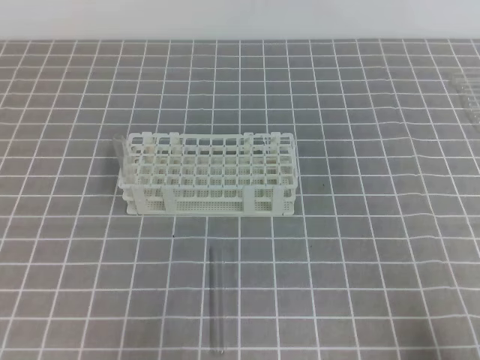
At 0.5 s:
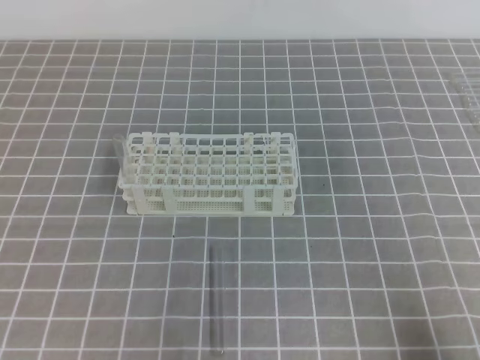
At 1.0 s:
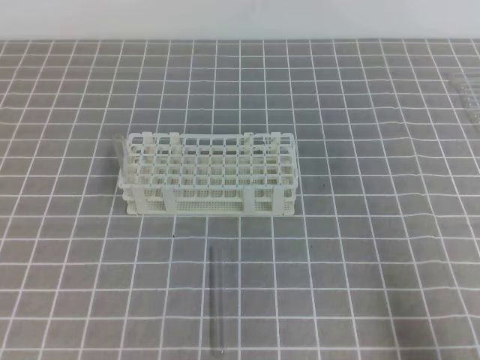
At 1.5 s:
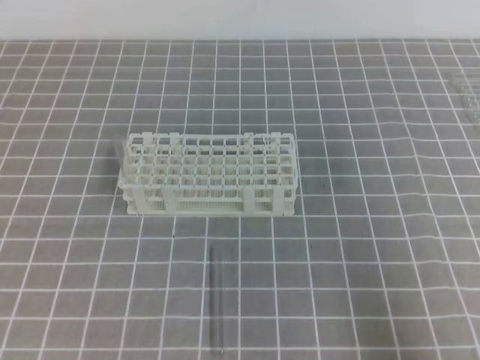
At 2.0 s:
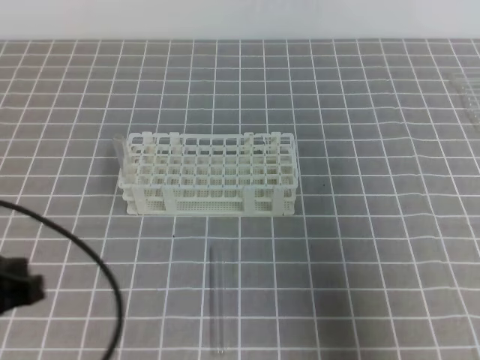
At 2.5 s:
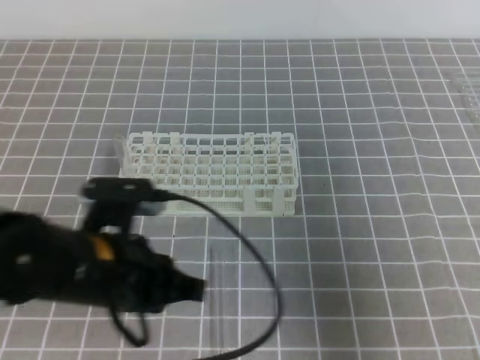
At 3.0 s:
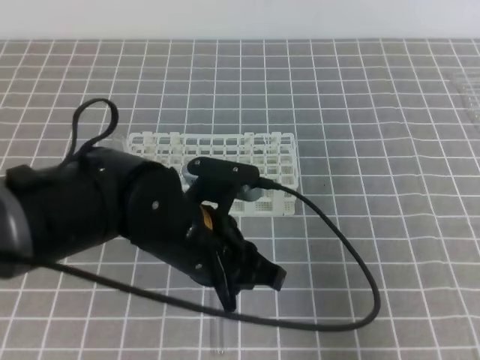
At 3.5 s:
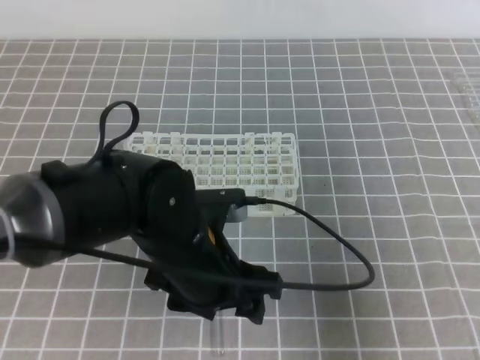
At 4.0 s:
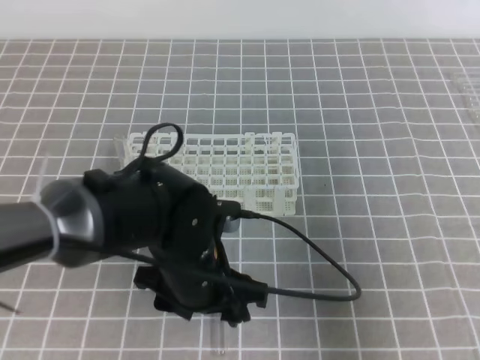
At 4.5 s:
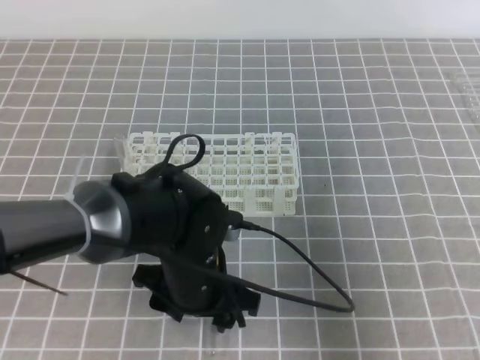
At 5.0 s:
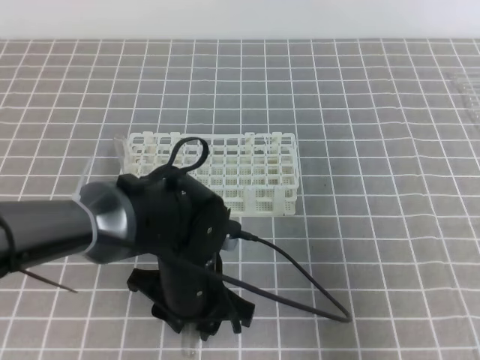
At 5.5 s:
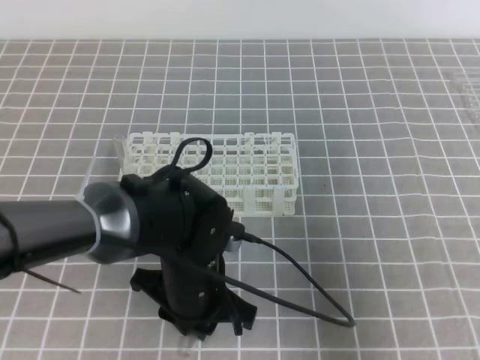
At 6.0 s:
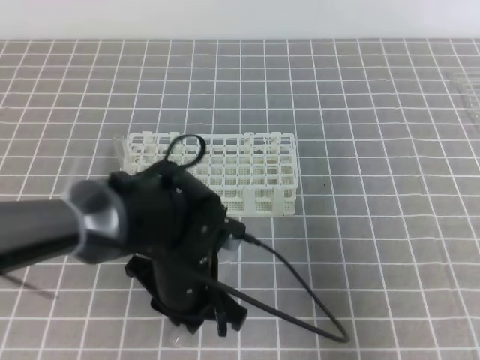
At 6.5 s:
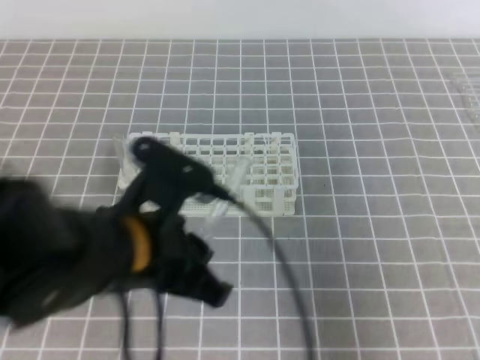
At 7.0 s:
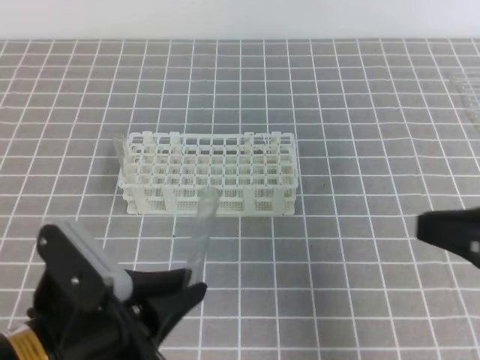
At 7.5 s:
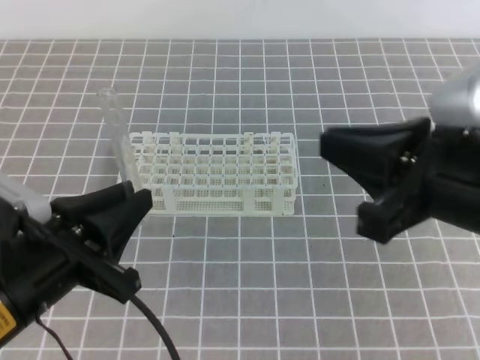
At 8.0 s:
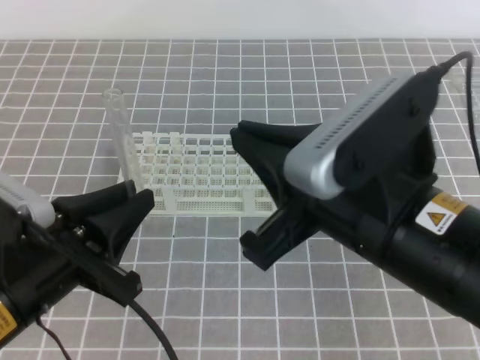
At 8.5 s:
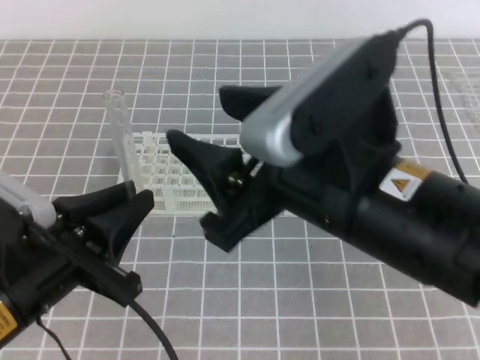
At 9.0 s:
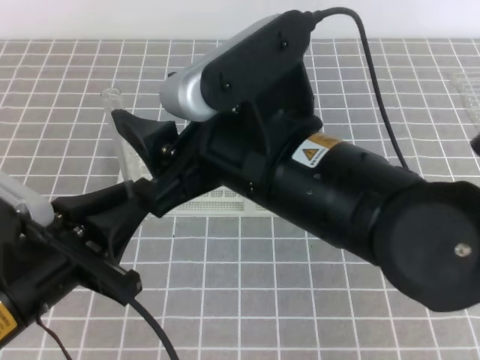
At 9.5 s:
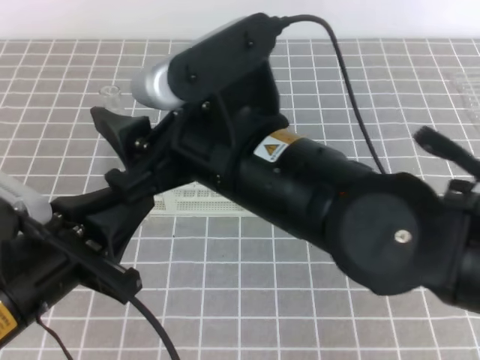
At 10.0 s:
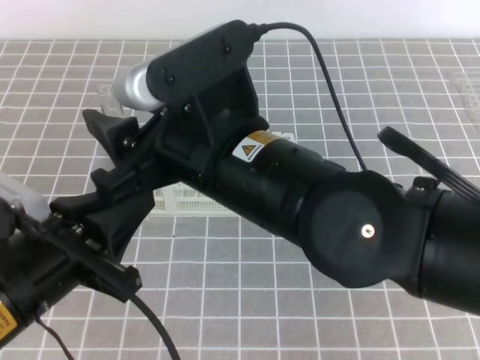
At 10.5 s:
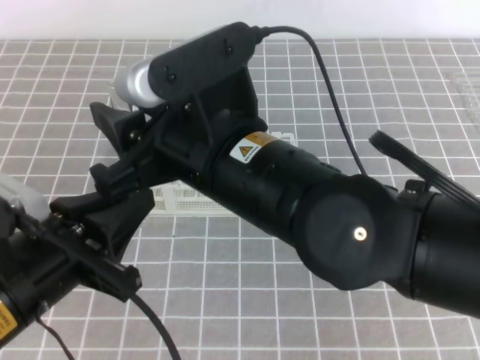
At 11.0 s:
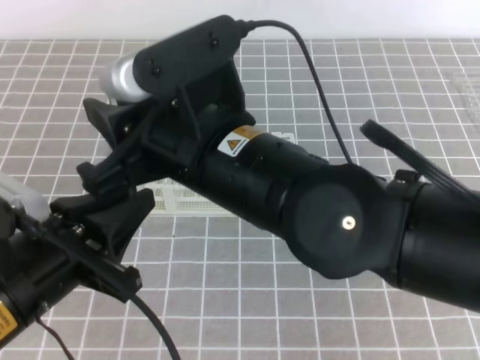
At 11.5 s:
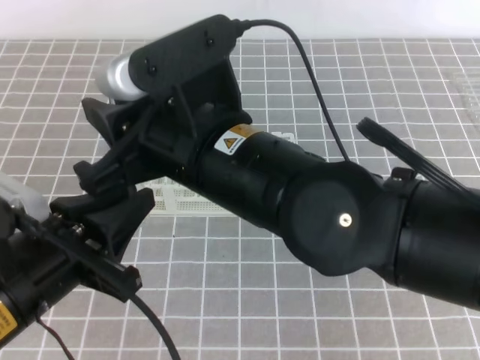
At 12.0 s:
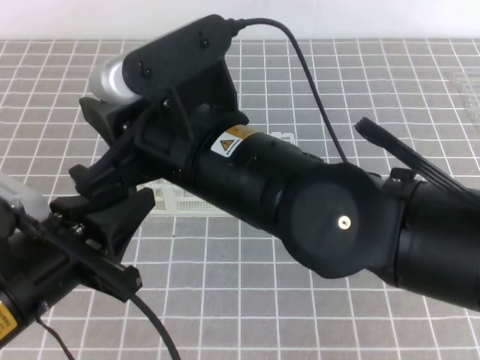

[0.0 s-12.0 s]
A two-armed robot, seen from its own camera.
0.0 to 2.0 s: The left gripper heads upward and forward, covering roughly 10 cm. Meanwhile the right gripper shifts about 10 cm upward.
2.0 to 4.0 s: The left gripper heads to the right and forward, covering approximately 20 cm, and opens its fingers.
4.0 to 6.0 s: The left gripper closes its fingers.
6.0 to 8.0 s: The left gripper moves to the left, upward and backward, roughly 15 cm; the right gripper shifts about 20 cm to the left and upward.
8.0 to 10.0 s: The right gripper goes some 10 cm to the left, and opens up.
10.0 to 12.0 s: The right gripper closes.

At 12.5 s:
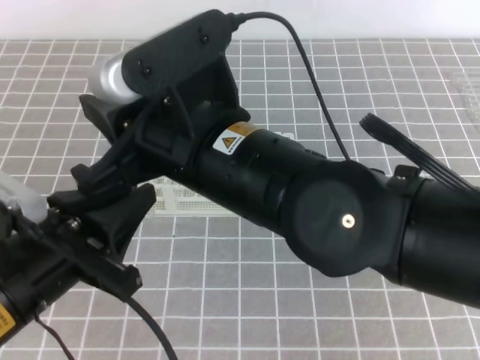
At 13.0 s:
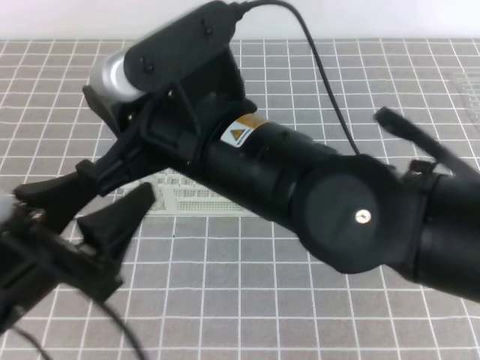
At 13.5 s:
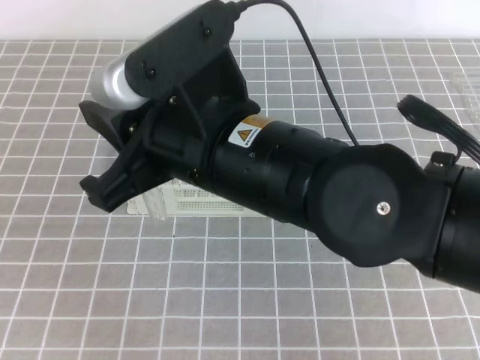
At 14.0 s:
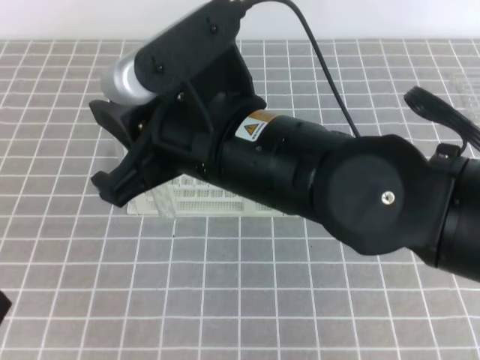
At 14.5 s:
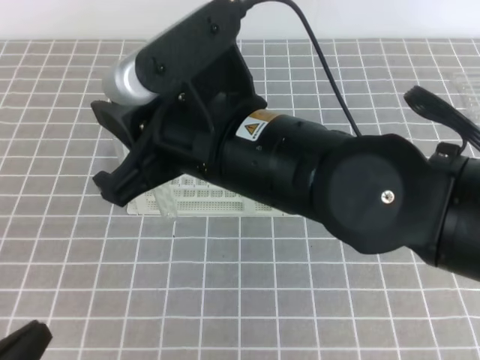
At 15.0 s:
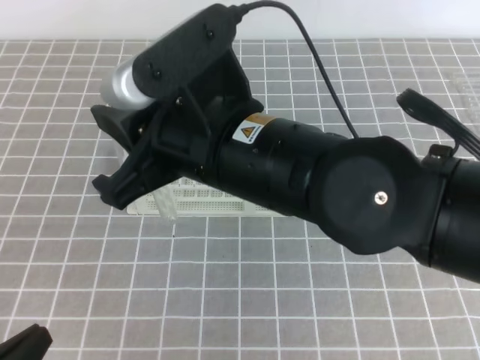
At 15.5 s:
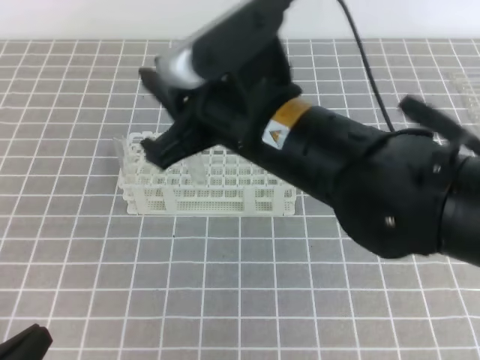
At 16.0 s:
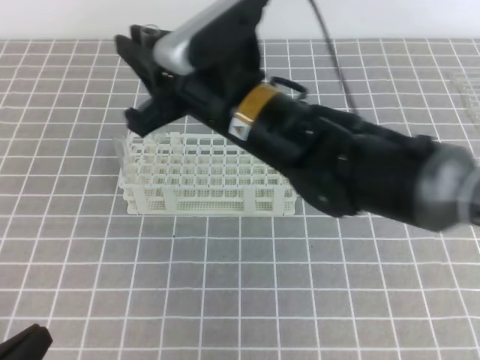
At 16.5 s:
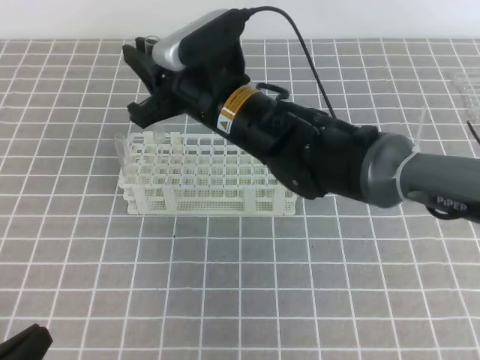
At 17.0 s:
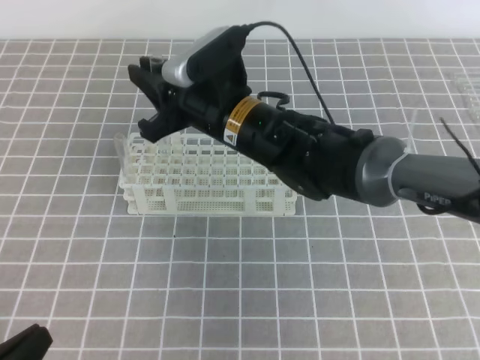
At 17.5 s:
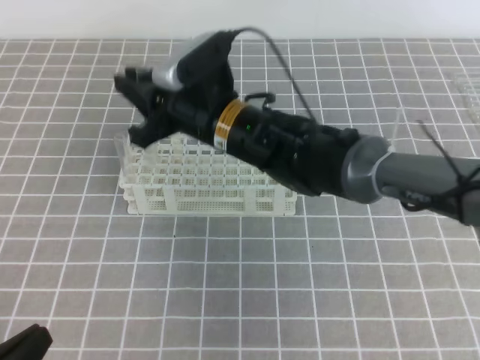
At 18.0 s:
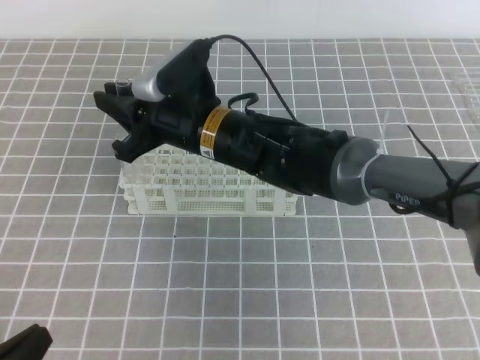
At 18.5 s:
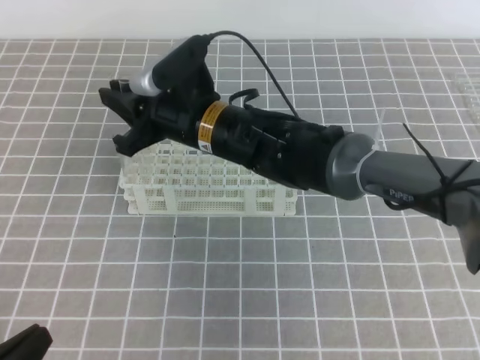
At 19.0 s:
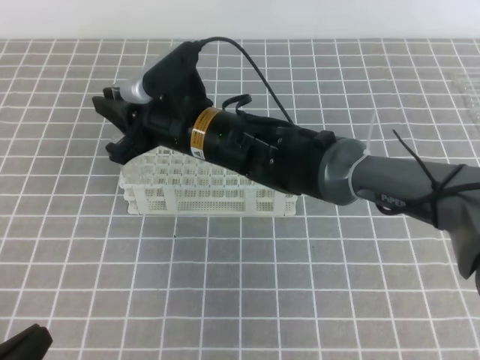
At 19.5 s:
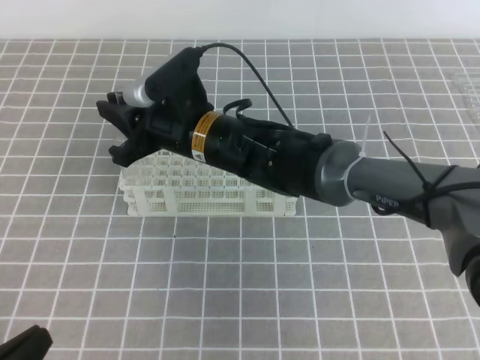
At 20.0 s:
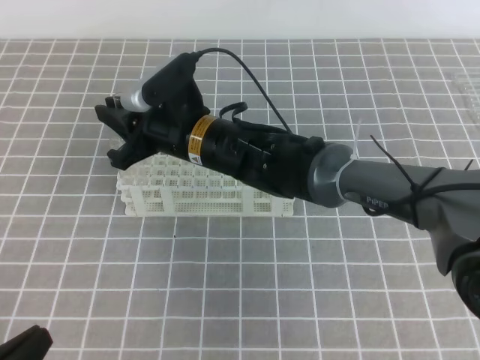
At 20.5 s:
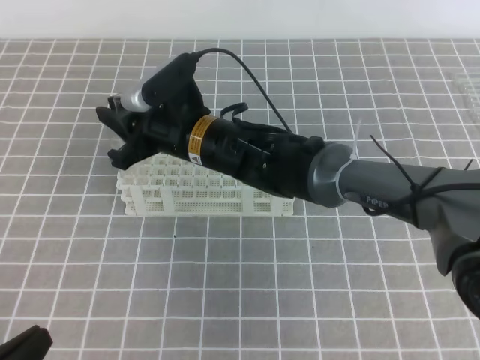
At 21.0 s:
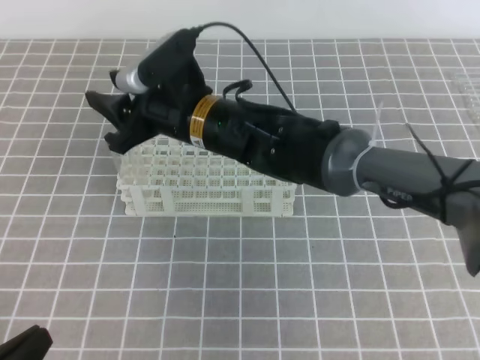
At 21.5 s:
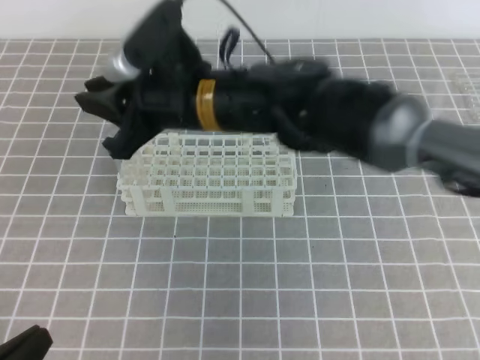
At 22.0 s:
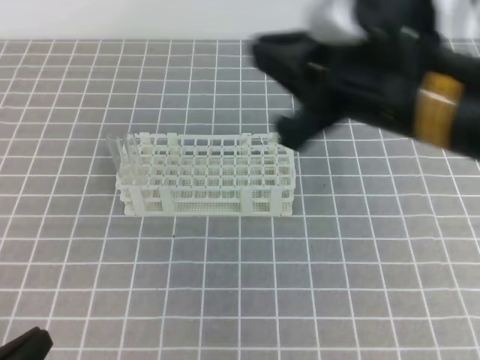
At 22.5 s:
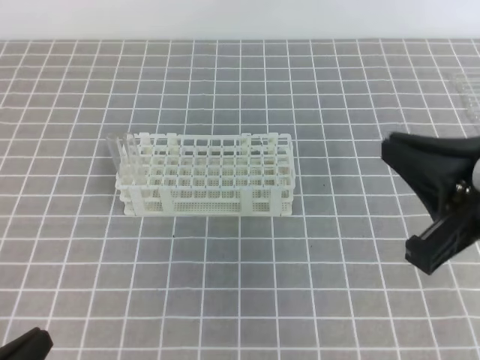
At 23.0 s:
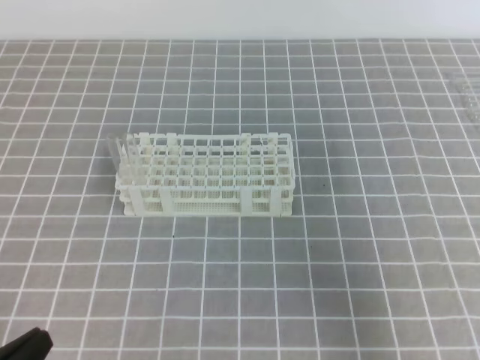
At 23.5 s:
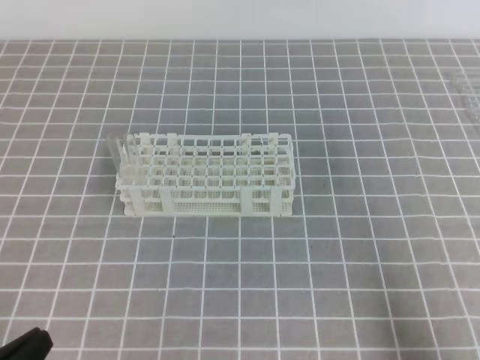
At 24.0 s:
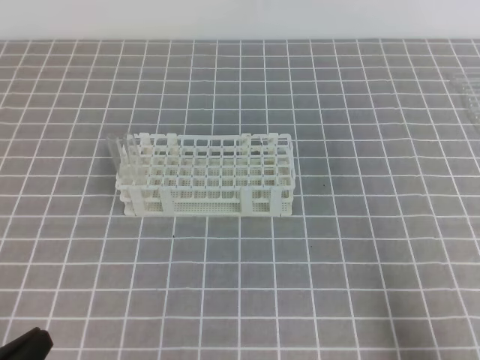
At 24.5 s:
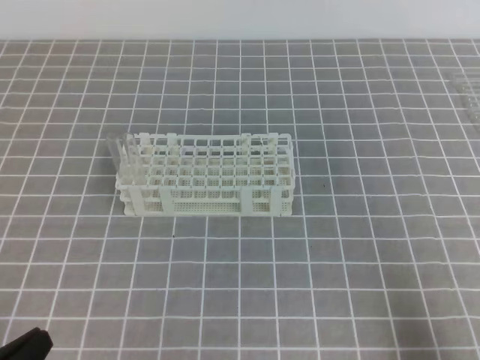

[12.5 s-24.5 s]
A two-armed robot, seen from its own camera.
12.5 to 14.5 s: The left gripper is displaced backward, downward and to the left by about 15 cm, and closes.
14.5 to 16.5 s: The right gripper moves forward and downward, about 15 cm.
16.5 to 18.5 s: The grippers stay close to where they were, moving slightly.
18.5 to 20.5 s: The grippers make only small movements.
20.5 to 22.5 s: The right gripper travels to the right, backward and upward by approximately 35 cm, and closes up.
22.5 to 24.5 s: The right gripper shifts roughly 20 cm downward, to the right and backward.

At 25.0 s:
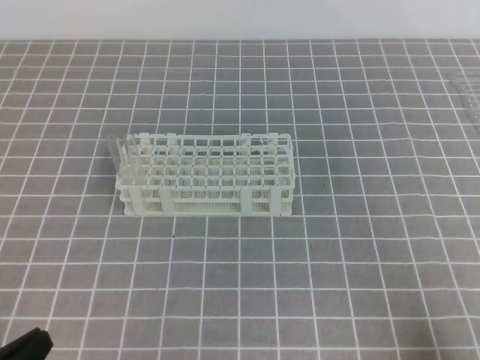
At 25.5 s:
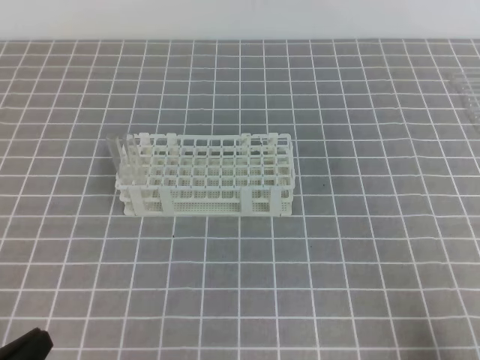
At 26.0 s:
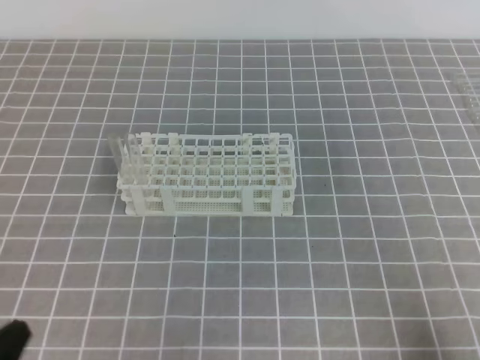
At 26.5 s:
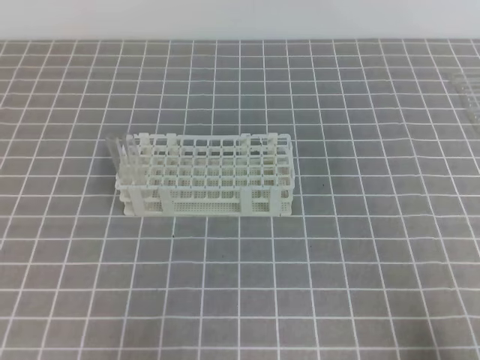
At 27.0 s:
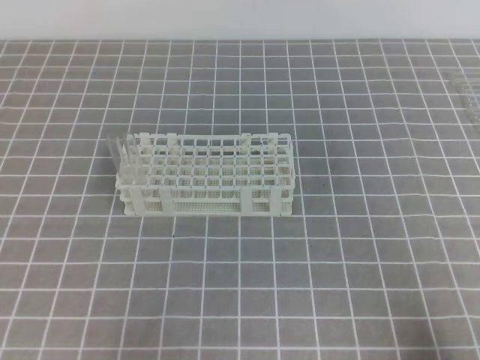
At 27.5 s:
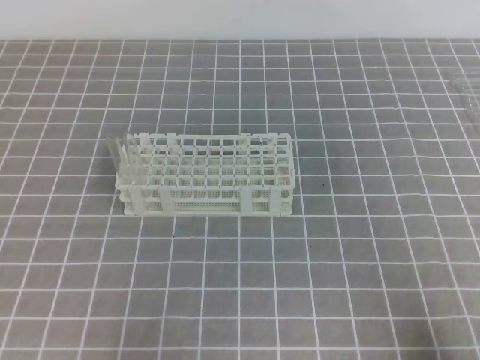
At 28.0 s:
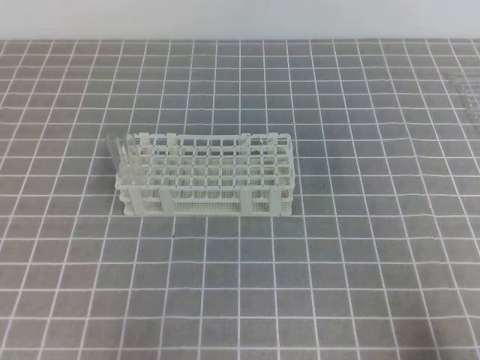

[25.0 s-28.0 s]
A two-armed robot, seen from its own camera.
26.5 to 28.0 s: Neither gripper changes place.
